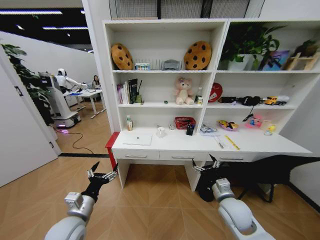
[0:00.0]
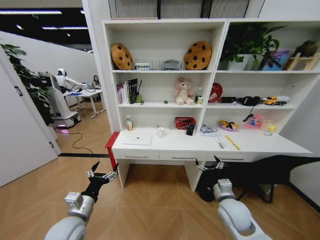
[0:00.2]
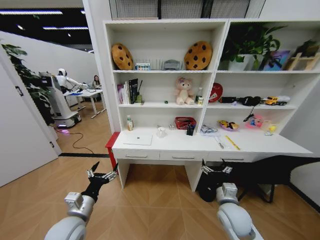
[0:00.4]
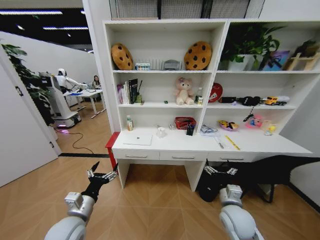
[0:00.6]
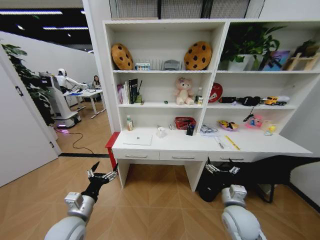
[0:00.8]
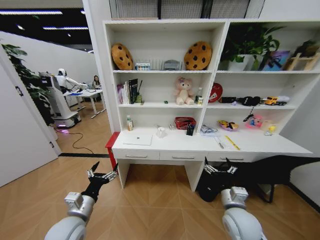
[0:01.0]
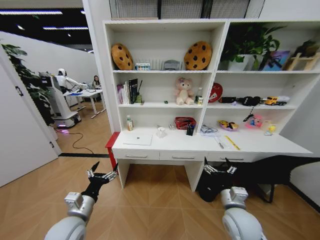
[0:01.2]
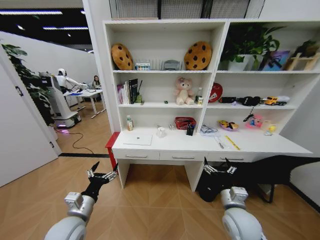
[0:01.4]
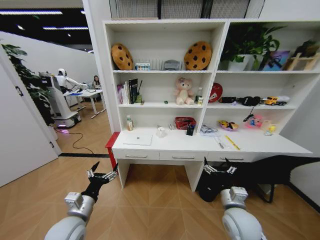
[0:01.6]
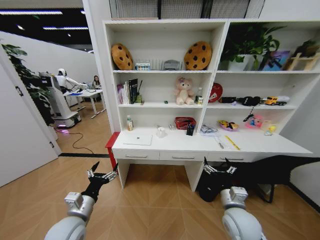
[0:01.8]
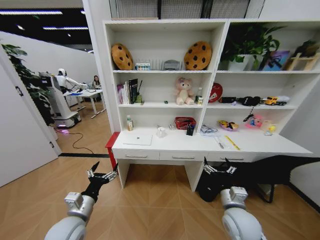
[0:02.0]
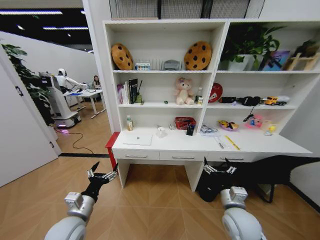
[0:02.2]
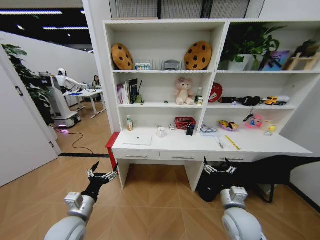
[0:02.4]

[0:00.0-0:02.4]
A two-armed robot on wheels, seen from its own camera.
Task of the whole recording: Organize the objects on the table.
0:00.0 to 0:01.2: There are only small adjustments of the grippers.
0:01.2 to 0:02.4: The two grippers keep their place.
